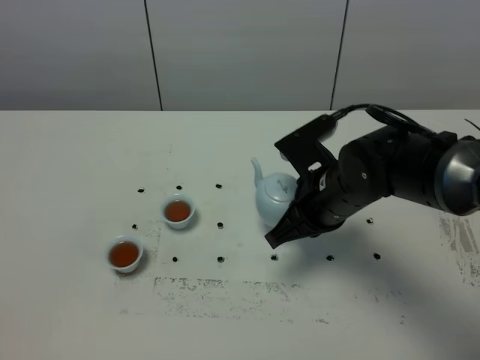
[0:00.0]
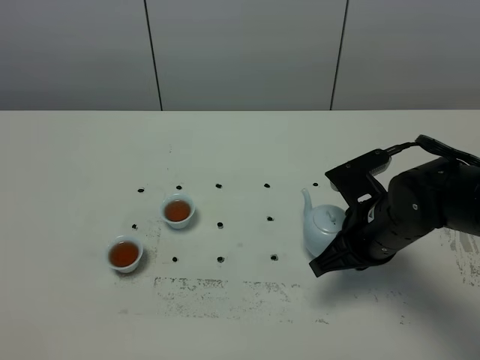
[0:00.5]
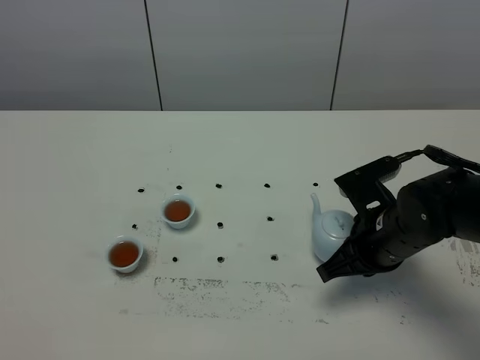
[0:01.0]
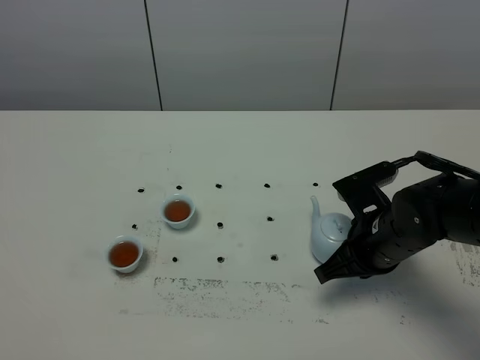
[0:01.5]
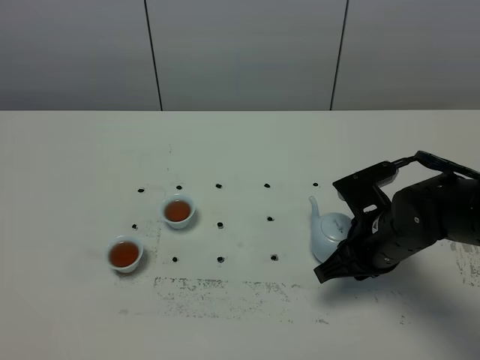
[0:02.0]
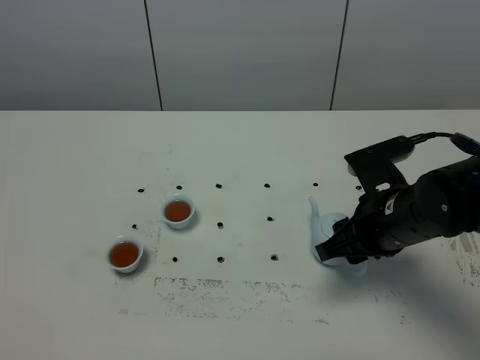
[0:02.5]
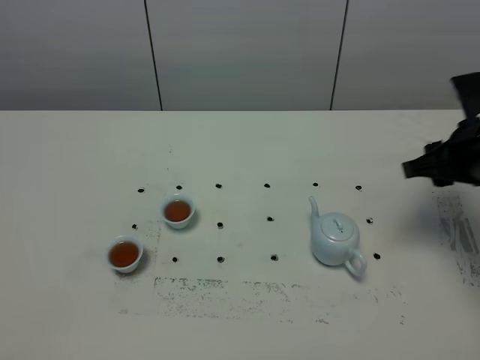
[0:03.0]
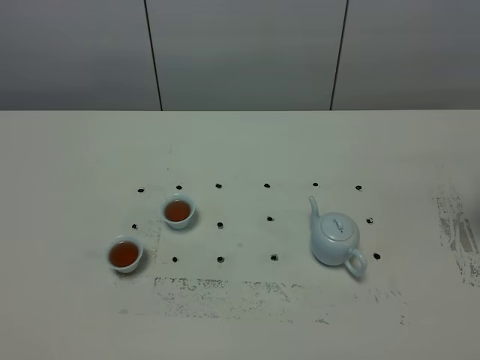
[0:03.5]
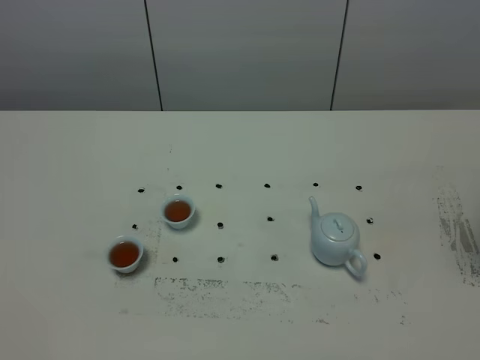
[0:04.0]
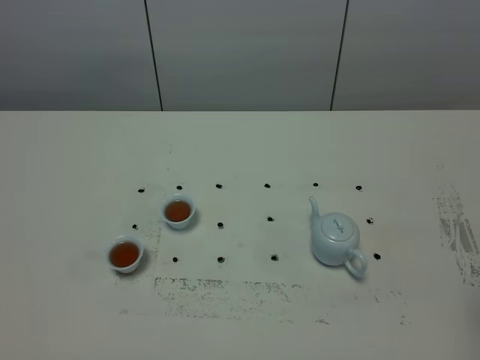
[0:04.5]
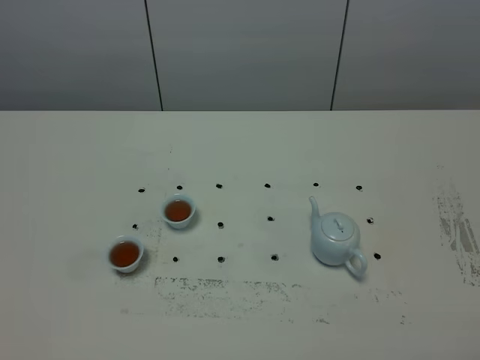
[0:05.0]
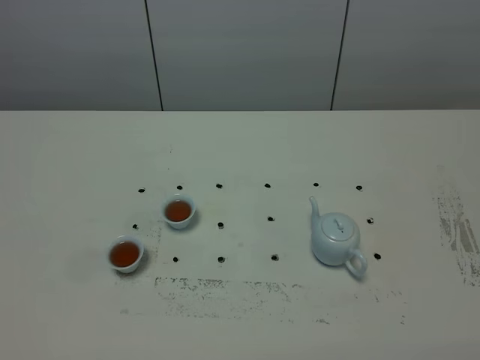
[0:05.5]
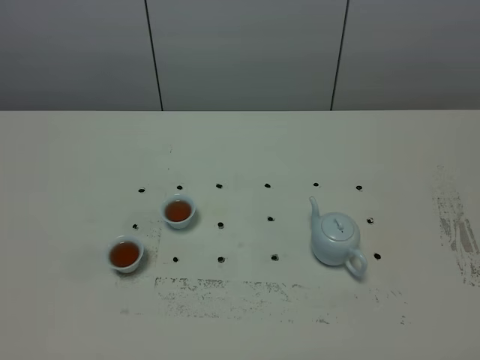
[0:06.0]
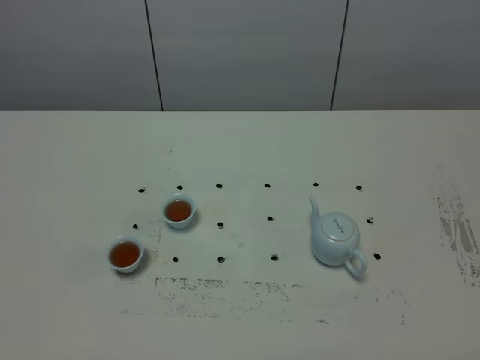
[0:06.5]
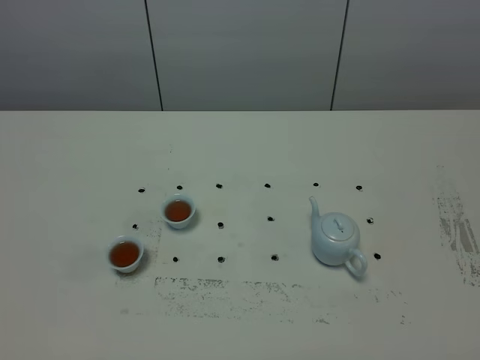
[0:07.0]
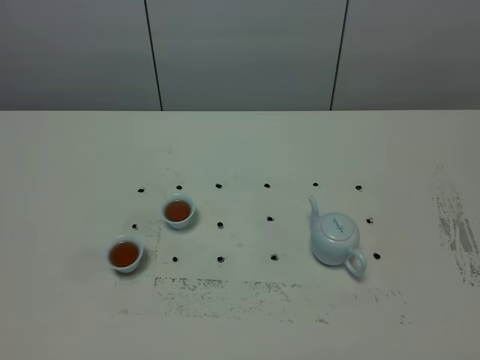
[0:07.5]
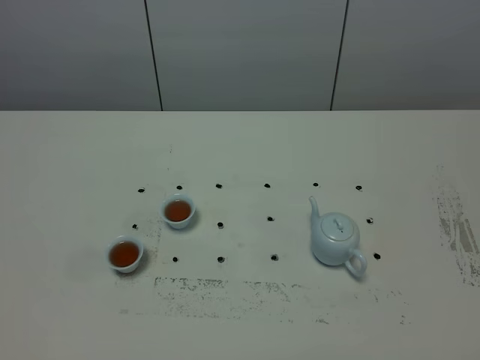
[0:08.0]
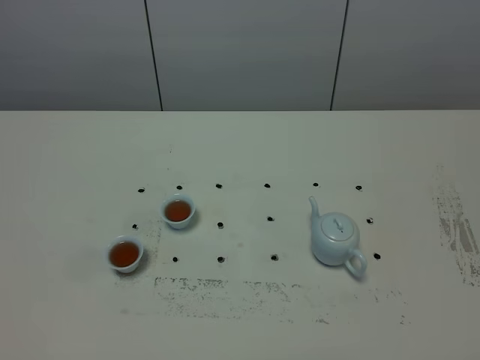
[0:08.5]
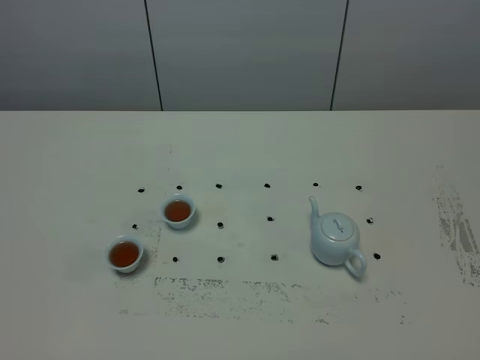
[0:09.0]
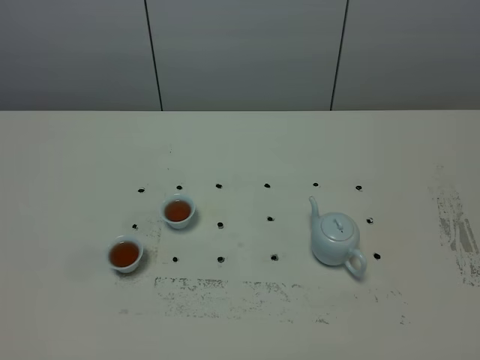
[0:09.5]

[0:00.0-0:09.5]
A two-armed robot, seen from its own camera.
Task of the whole recording: grasp the blue porcelain teapot and pour the tea into the two blue porcelain teacups one by one, put the blue porcelain teapot back in its original place.
0.0 to 2.0 s: The right gripper goes about 5 cm to the right, and opens its fingers.
2.0 to 4.0 s: The right gripper travels upward and to the right by about 25 cm, and opens.
7.5 to 9.5 s: The two grippers keep their place.

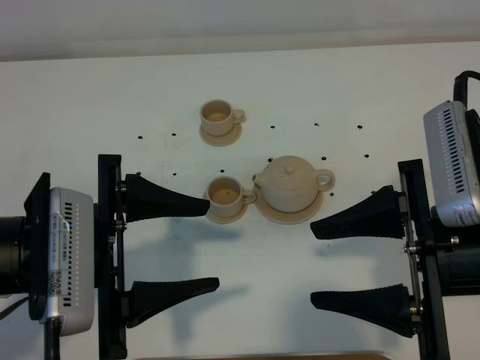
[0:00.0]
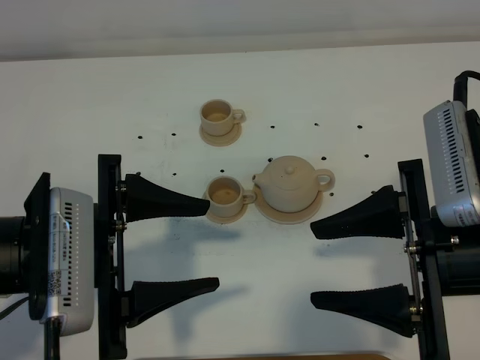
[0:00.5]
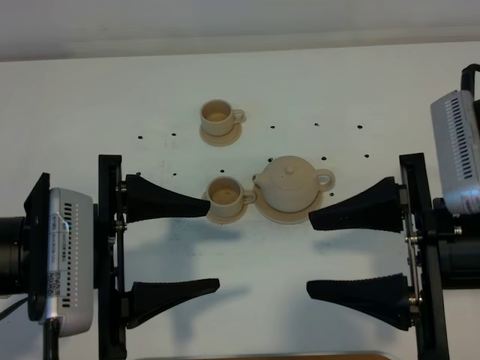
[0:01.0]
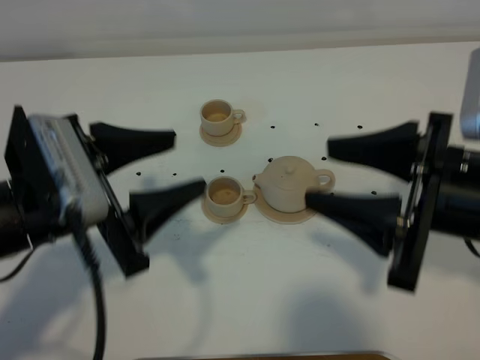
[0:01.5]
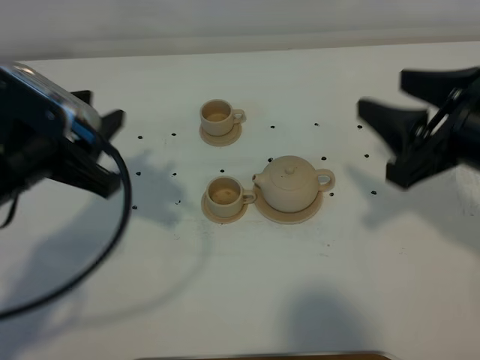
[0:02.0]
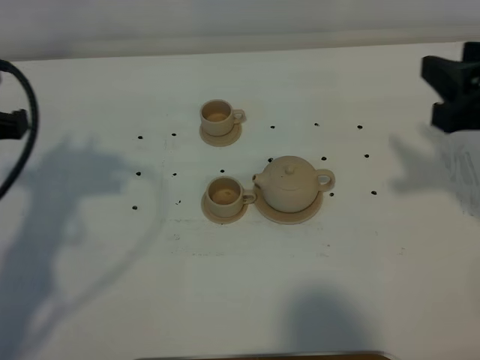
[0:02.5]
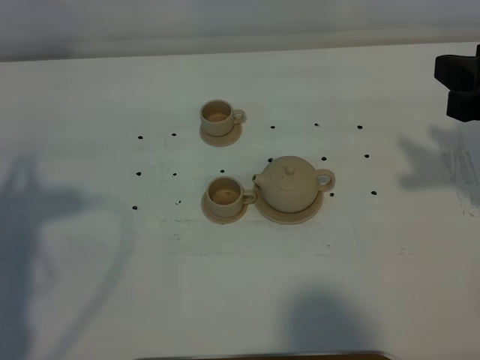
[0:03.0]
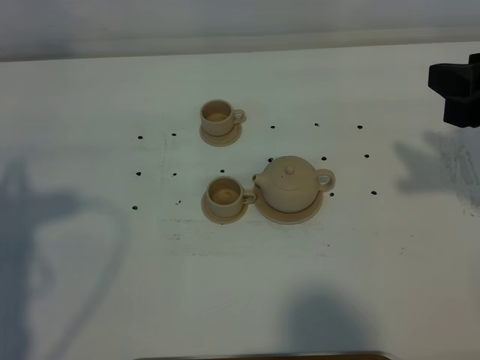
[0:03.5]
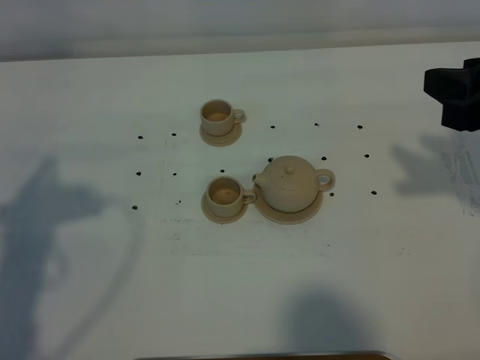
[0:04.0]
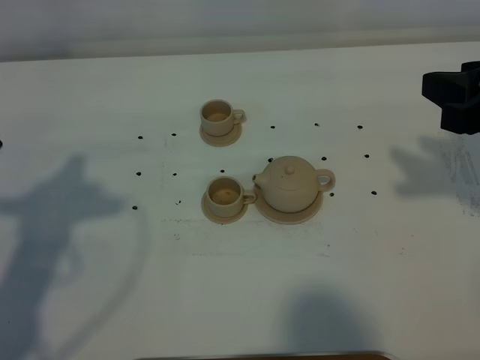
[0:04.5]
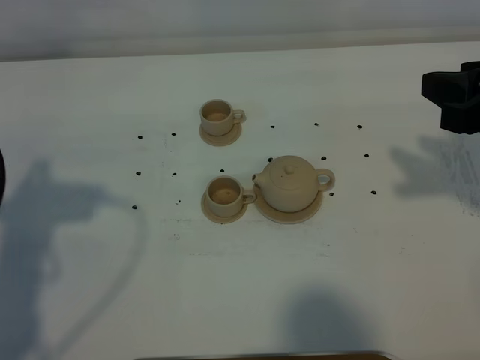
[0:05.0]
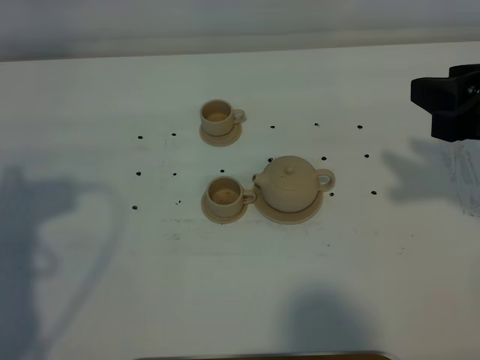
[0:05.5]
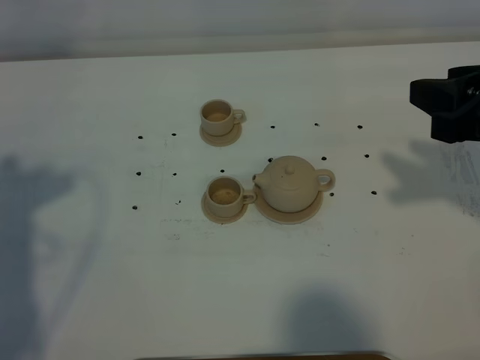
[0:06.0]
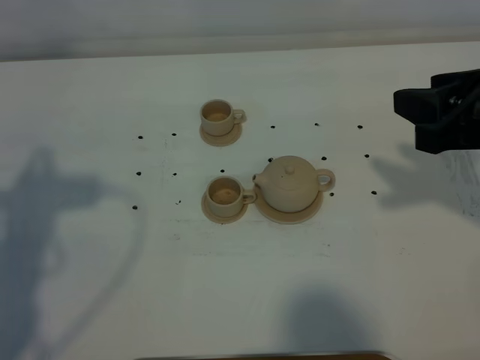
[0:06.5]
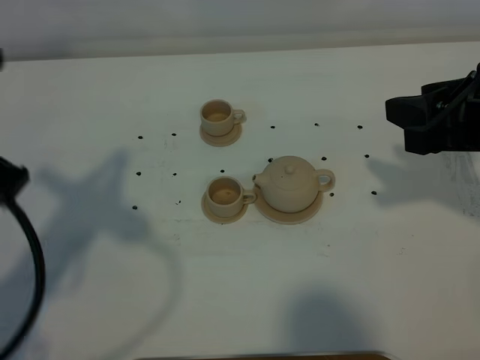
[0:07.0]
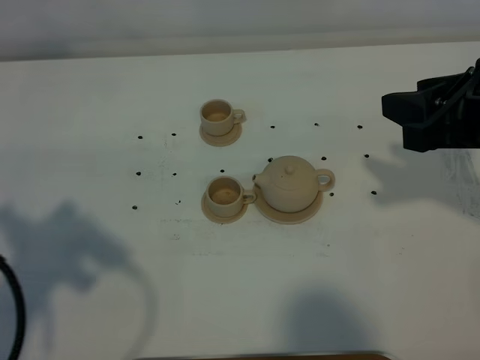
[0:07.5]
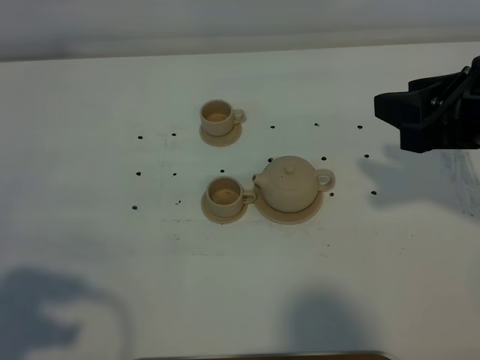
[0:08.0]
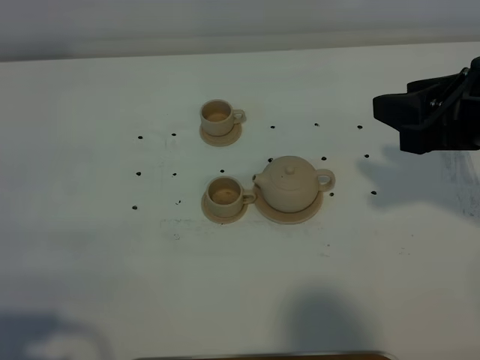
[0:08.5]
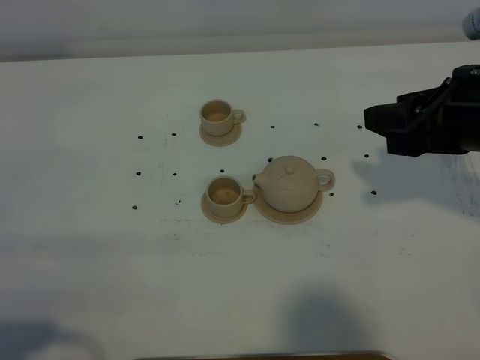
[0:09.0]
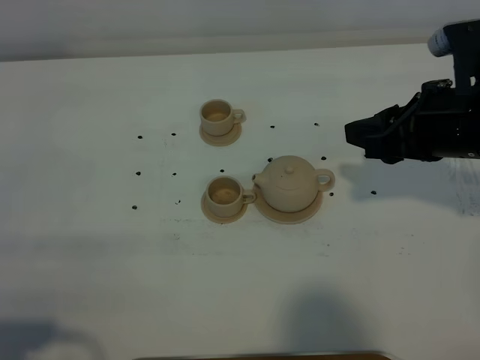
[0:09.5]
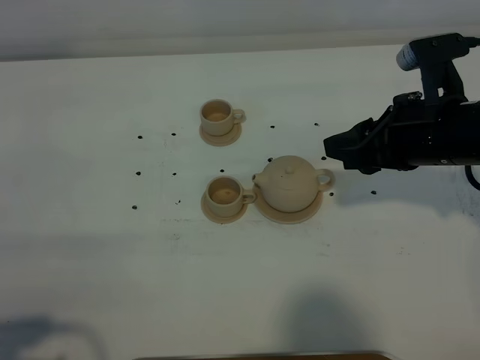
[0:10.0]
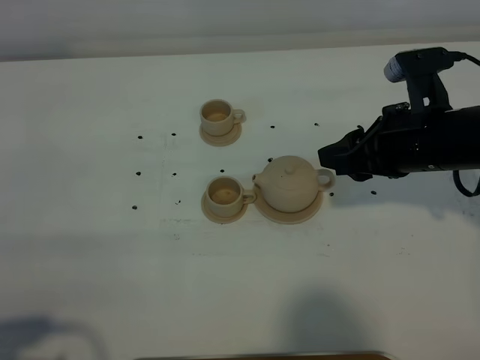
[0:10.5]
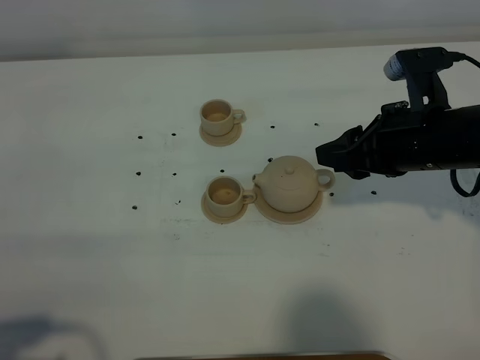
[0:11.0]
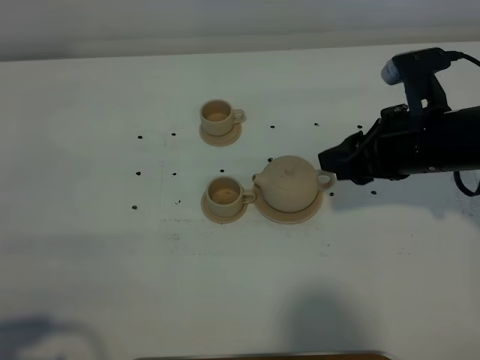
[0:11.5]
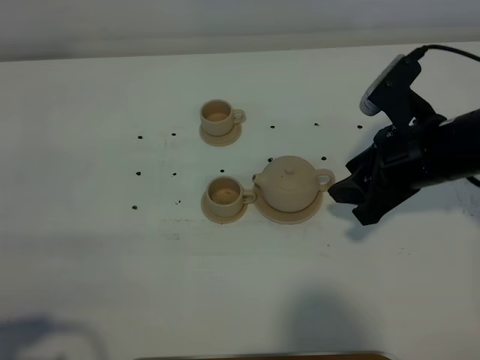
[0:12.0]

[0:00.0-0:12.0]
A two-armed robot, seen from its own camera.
Task of the whole recording: grasp the brown teapot and pour the tea into the two brown teacups one by one, put the brown teapot back in its original place.
0.0 to 2.0 s: The right gripper heads forward, covering some 5 cm. The left gripper goes roughly 10 cm forward and to the left, and closes its fingers.
2.0 to 4.0 s: The left gripper travels to the left and backward by about 10 cm, and closes up.
6.0 to 8.0 s: The left gripper travels backward by about 10 cm.
8.0 to 10.0 s: Both grippers move downward, about 5 cm.

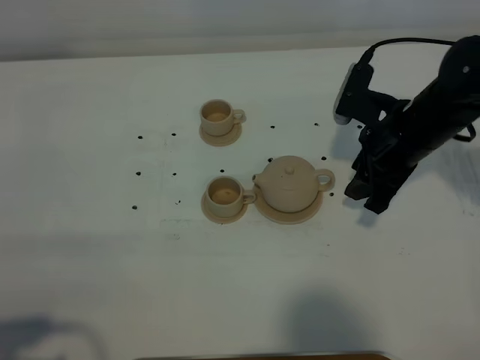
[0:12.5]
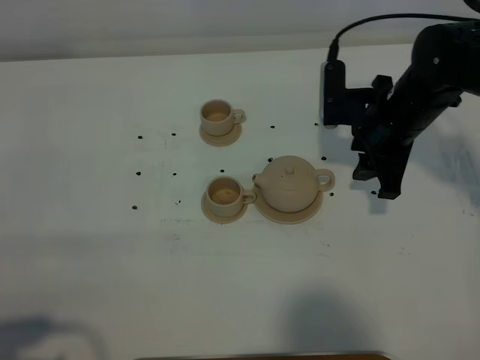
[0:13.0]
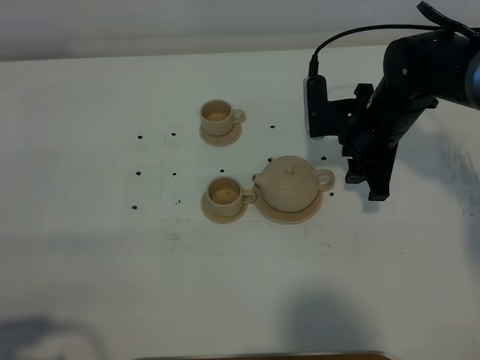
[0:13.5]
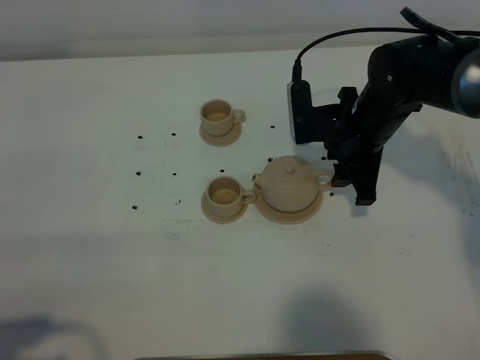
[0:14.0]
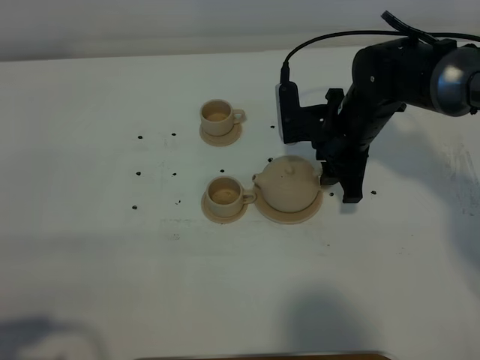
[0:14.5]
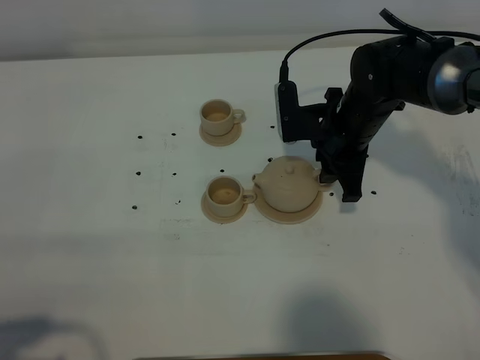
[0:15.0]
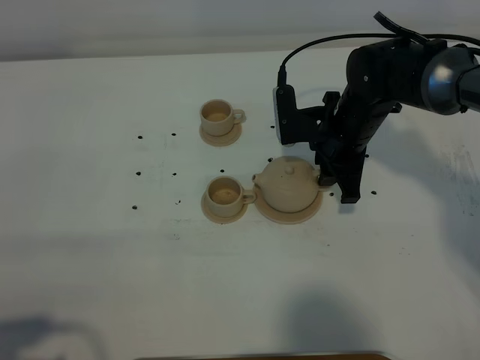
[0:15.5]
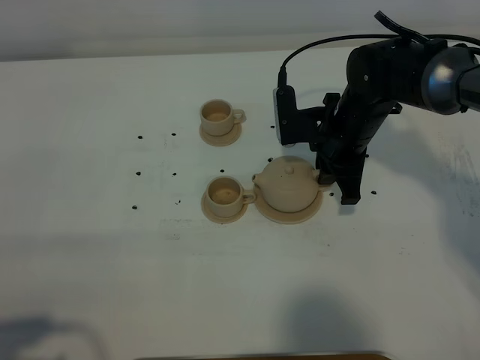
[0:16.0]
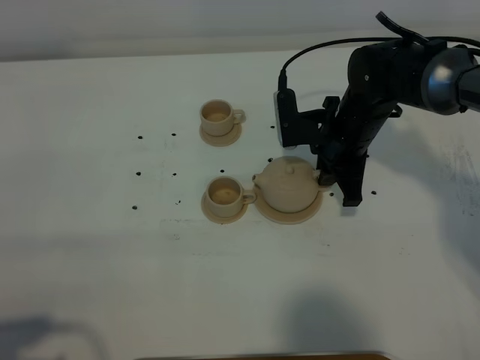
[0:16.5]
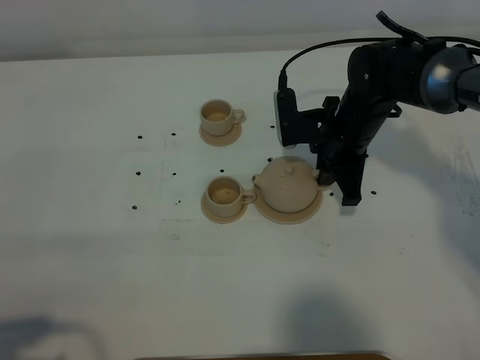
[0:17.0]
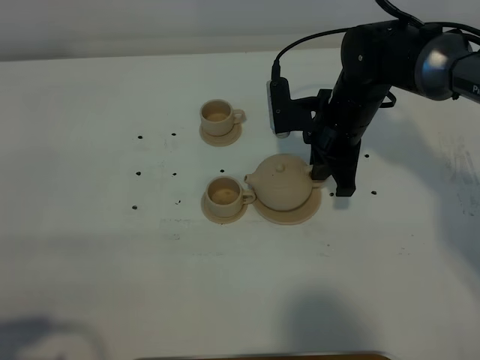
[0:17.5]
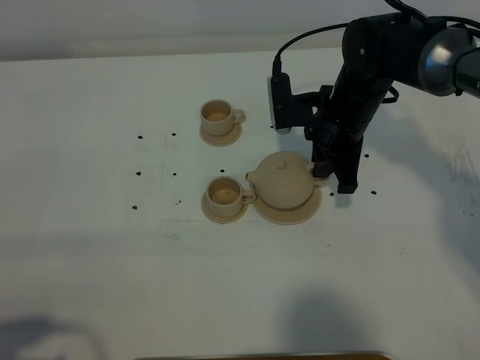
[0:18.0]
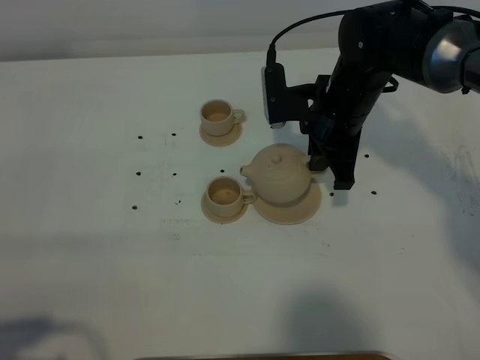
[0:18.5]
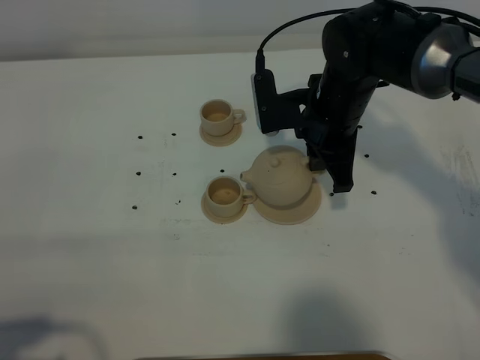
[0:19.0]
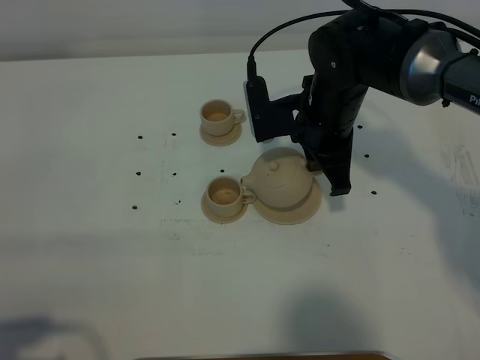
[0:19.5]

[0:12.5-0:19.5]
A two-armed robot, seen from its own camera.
Task of the whole recording: grasp the brown teapot and pour the tea into the two brown teacups one by one, put the brown teapot back in its original place.
Step, 12.5 to 18.5 s: Pick up the teapot with the right gripper.
12.5 to 14.5 s: The right gripper moves to the left, approximately 5 cm.
14.5 to 16.0 s: Both grippers stay put.
16.0 to 17.5 s: The grippers make only small movements.
17.5 to 19.5 s: The right gripper moves some 5 cm.
